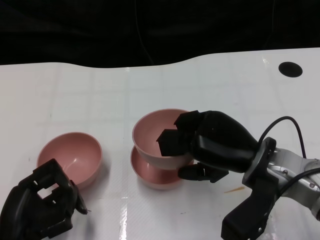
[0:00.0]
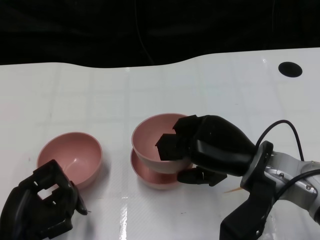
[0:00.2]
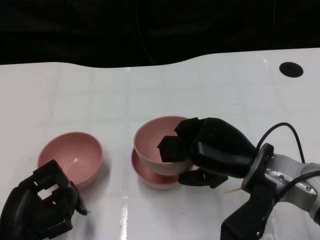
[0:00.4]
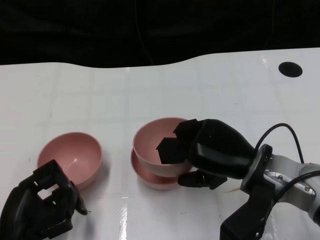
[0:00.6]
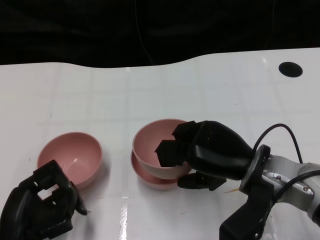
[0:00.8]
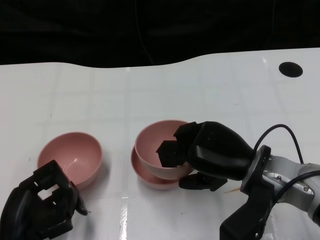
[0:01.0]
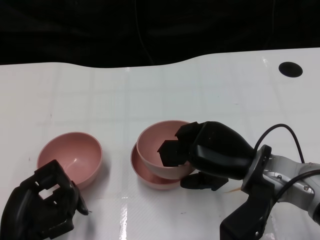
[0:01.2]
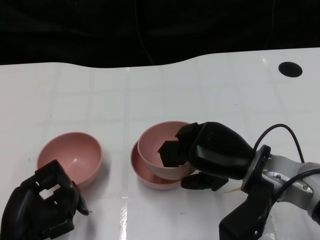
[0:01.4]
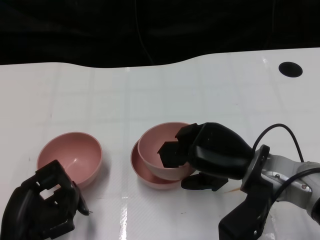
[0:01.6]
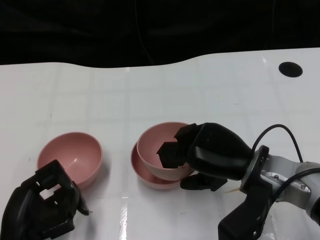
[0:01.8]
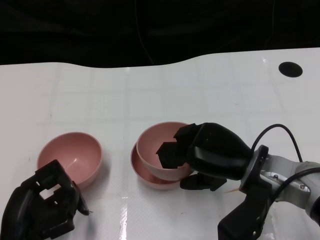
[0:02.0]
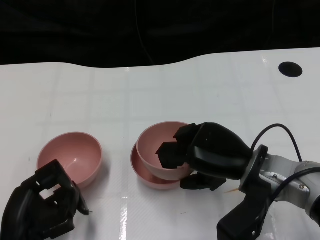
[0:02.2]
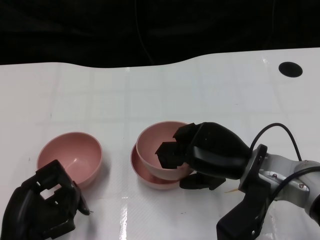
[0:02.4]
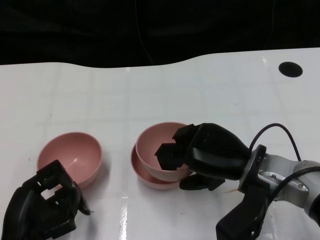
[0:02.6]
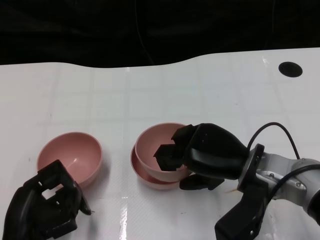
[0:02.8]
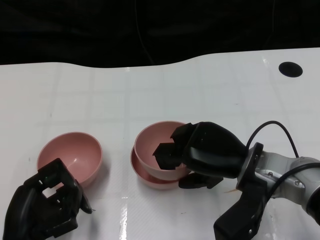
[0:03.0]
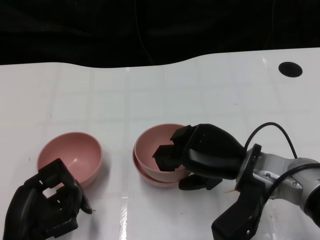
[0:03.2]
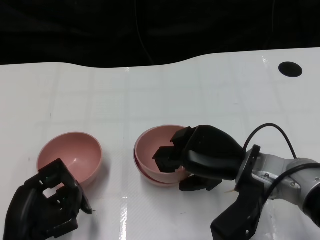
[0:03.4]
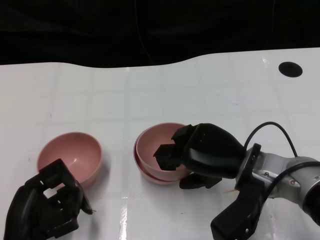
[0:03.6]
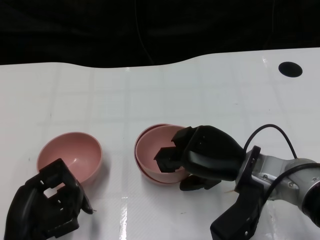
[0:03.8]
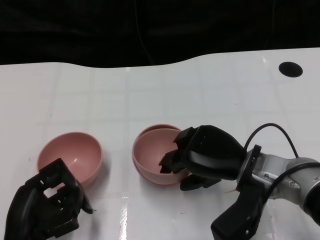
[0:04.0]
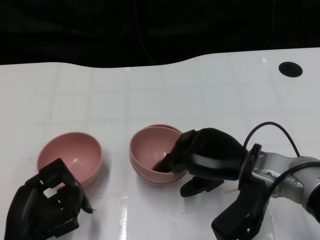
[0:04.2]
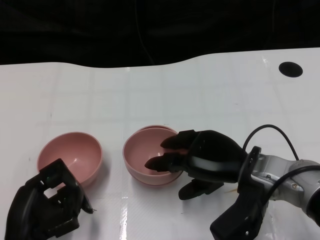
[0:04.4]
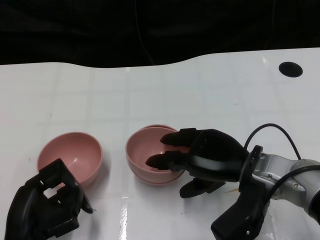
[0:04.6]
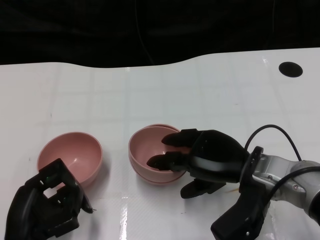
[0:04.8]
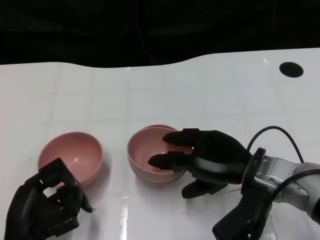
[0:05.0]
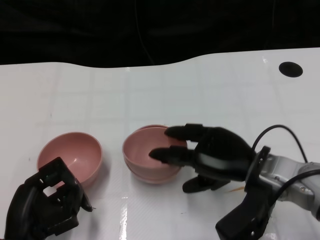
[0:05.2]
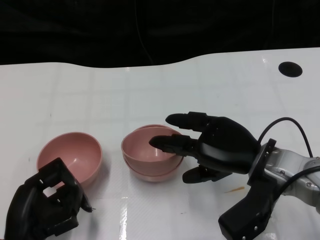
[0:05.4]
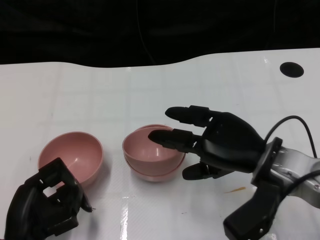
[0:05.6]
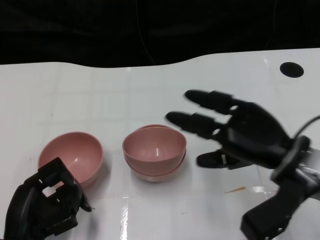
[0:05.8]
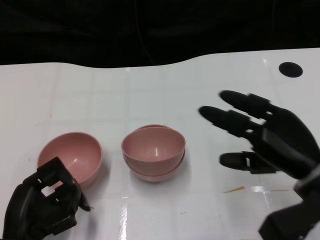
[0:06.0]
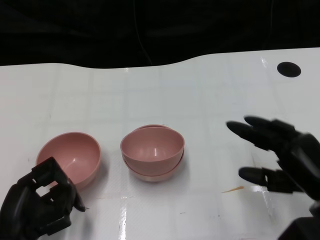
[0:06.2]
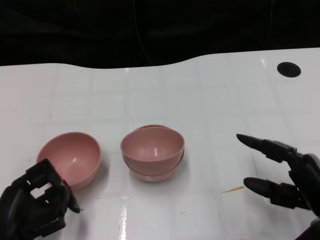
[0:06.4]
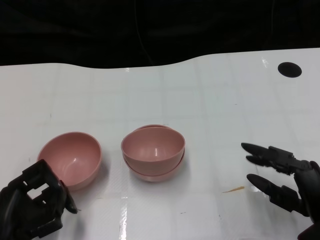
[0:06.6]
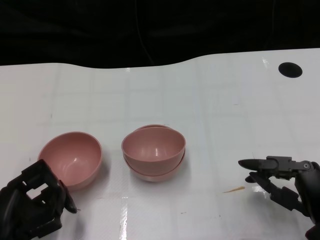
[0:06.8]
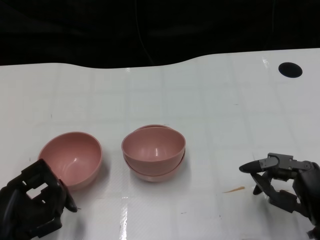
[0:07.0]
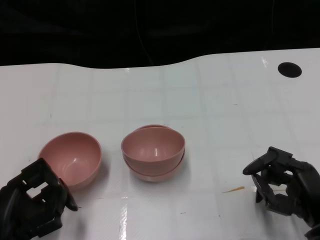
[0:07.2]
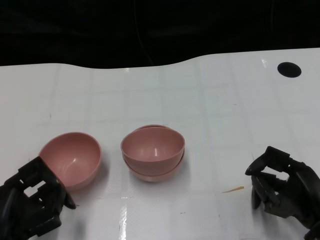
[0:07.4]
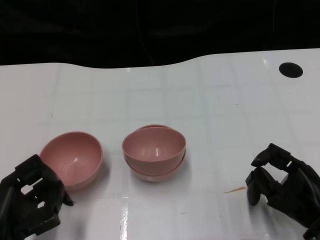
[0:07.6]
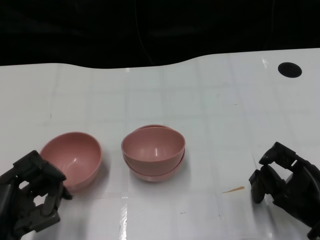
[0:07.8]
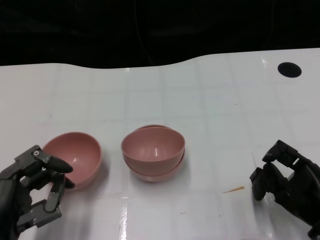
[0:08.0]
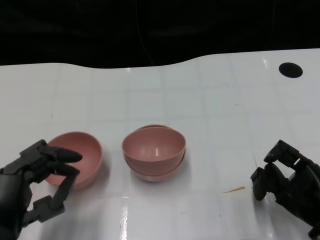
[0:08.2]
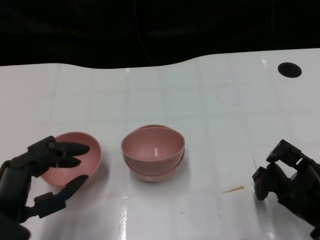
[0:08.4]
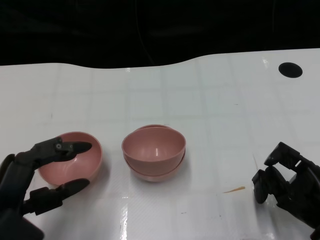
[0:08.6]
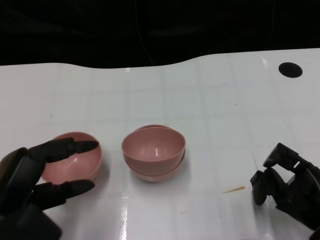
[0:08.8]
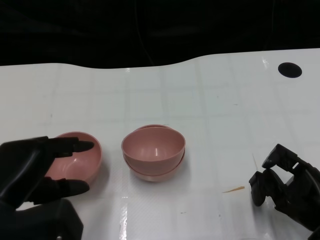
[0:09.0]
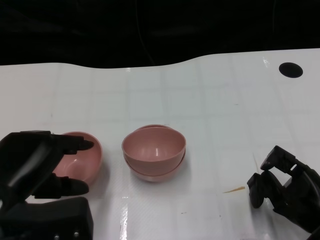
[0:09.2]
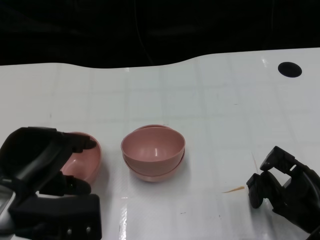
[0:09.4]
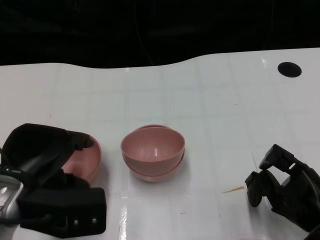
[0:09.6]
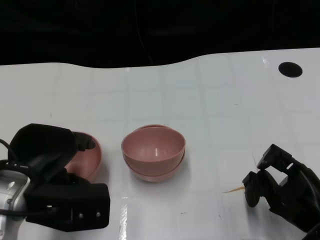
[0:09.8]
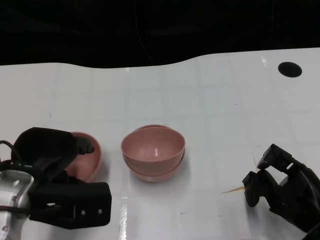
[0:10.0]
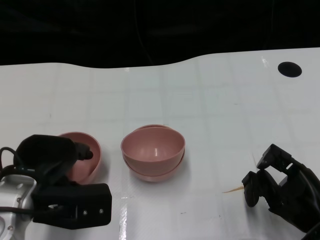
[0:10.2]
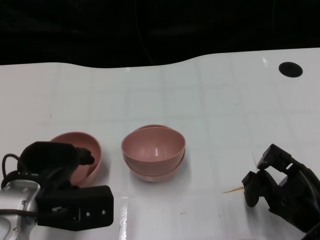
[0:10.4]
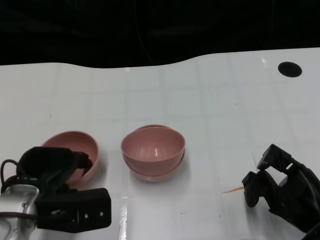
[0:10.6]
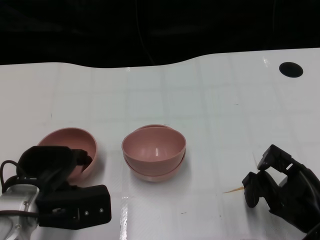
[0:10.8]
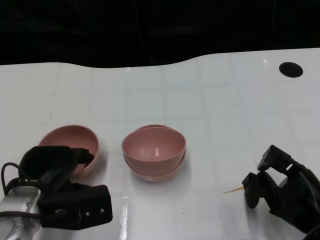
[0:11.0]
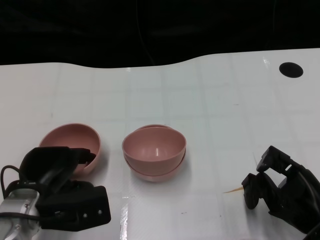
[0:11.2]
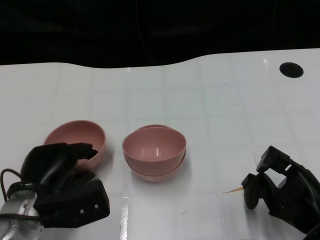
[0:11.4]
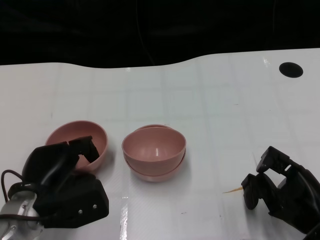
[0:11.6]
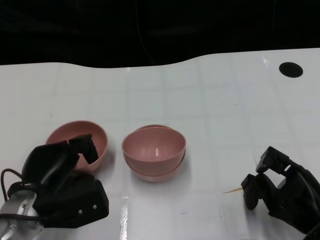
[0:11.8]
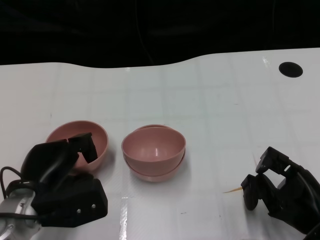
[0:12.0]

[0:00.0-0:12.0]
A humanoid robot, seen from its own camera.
Task of the whole recording: Pick up the bowl on one side of the table and place it on top of the middle bowl, then pick up the bowl on the other side of the table and place it on top of the middle bowls.
Step, 0:00.0 to 0:05.6: Place the bowl on the right onto the bowl in the middle with right gripper.
0:00.0 to 0:01.6: The hands stay close to where they were, moving slightly.
0:01.6 to 0:03.0: Neither hand changes place.
0:03.0 to 0:04.4: The hands stay close to where they were, moving slightly.
0:04.4 to 0:06.0: The right hand heads to the right, covering approximately 10 cm.
0:06.0 to 0:07.6: The right hand shifts approximately 10 cm downward.
0:07.6 to 0:09.0: The left hand is displaced upward by approximately 10 cm.
0:09.0 to 0:10.4: The left hand moves forward, roughly 5 cm.

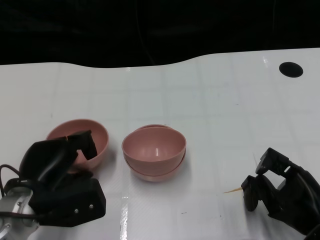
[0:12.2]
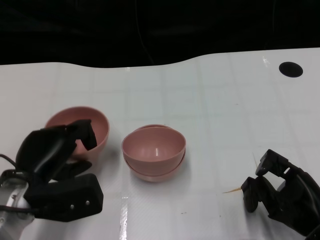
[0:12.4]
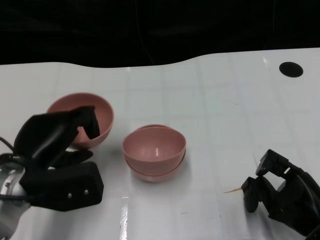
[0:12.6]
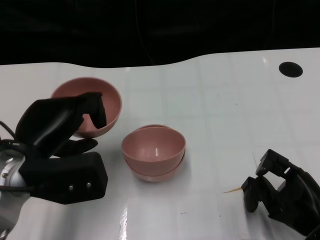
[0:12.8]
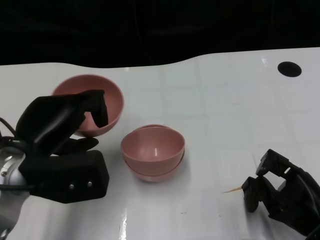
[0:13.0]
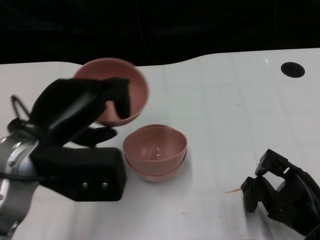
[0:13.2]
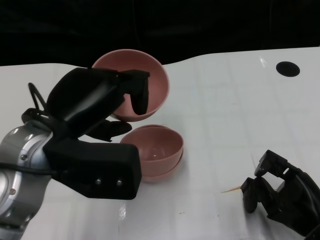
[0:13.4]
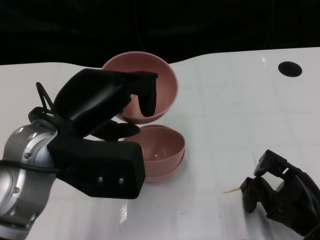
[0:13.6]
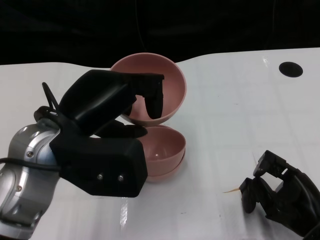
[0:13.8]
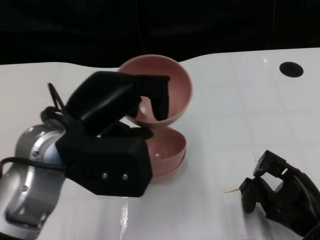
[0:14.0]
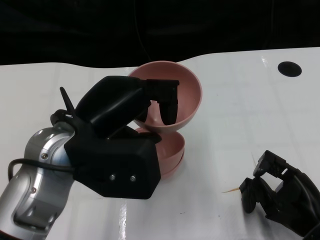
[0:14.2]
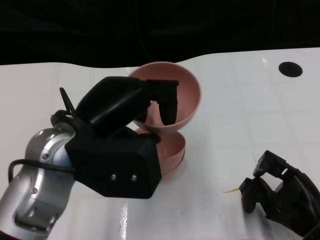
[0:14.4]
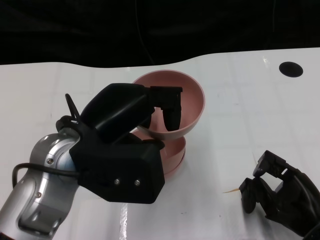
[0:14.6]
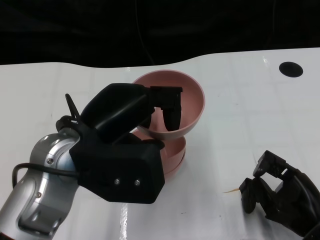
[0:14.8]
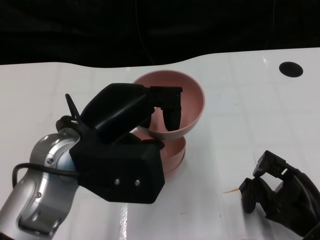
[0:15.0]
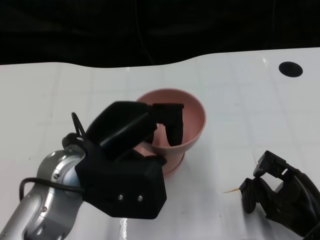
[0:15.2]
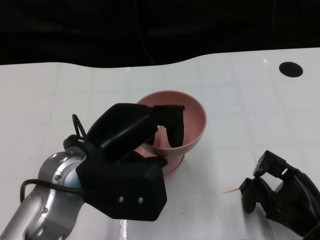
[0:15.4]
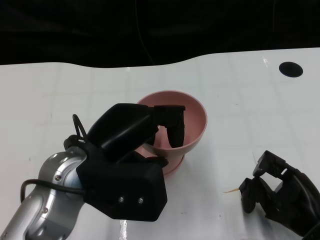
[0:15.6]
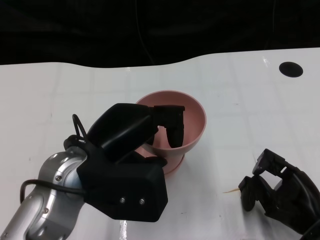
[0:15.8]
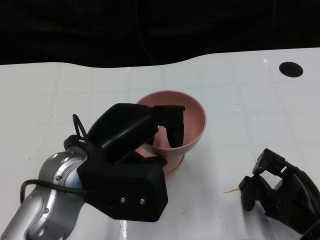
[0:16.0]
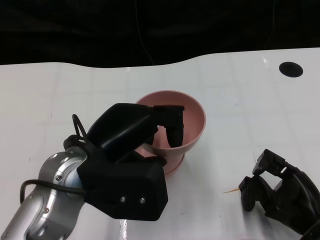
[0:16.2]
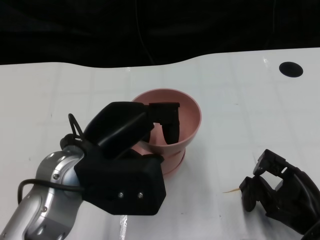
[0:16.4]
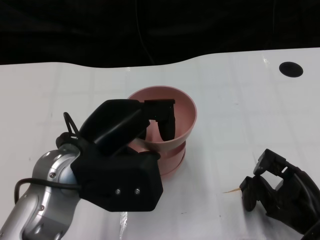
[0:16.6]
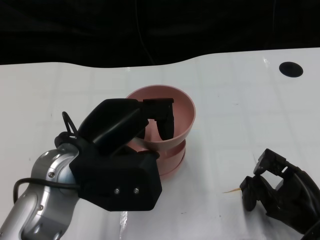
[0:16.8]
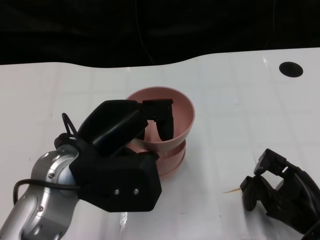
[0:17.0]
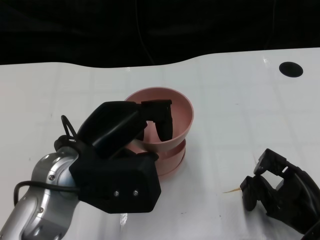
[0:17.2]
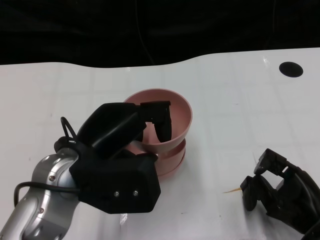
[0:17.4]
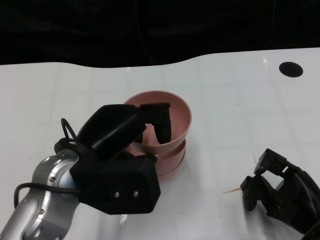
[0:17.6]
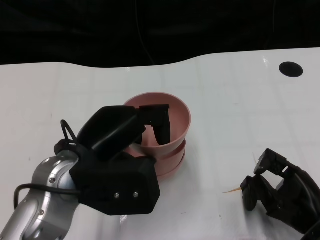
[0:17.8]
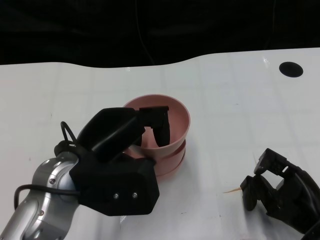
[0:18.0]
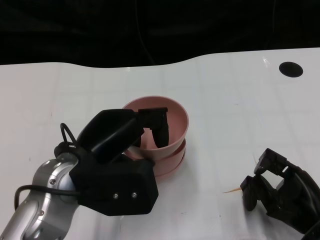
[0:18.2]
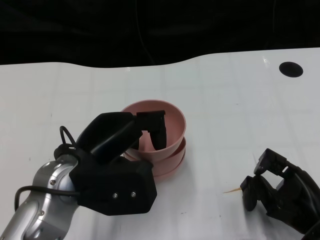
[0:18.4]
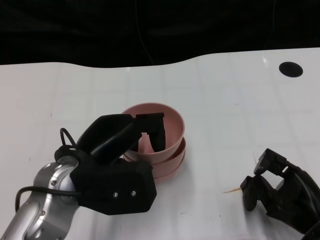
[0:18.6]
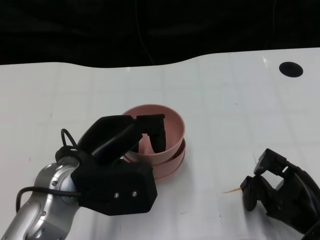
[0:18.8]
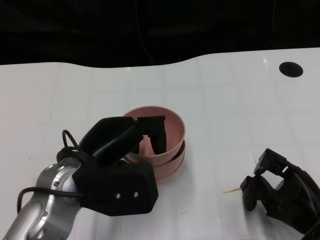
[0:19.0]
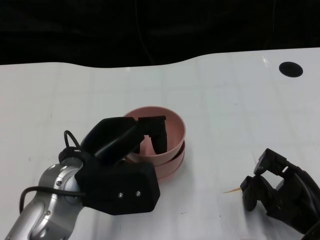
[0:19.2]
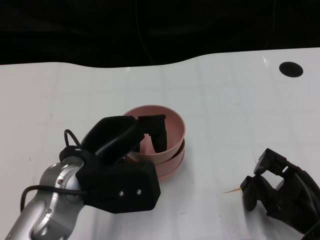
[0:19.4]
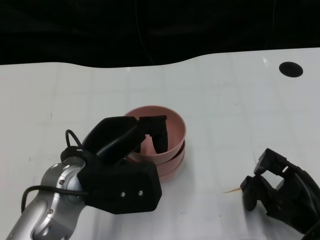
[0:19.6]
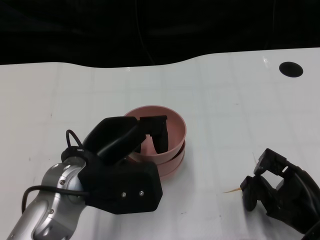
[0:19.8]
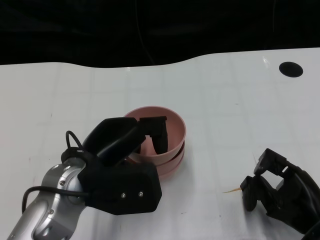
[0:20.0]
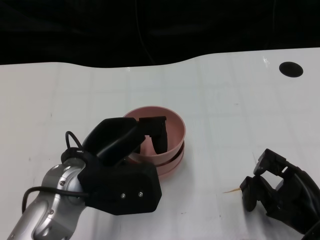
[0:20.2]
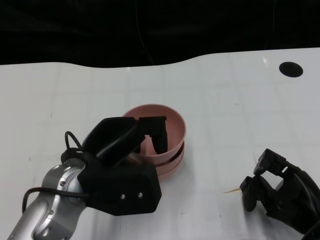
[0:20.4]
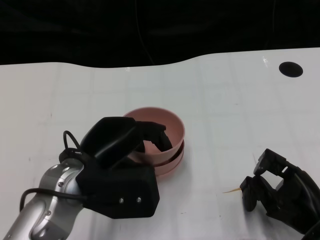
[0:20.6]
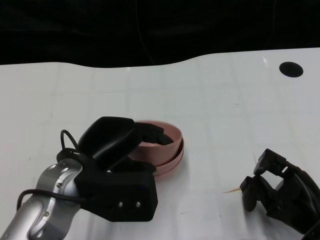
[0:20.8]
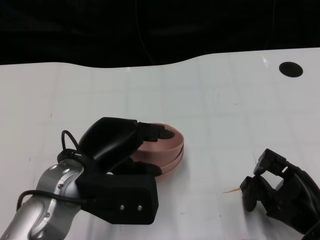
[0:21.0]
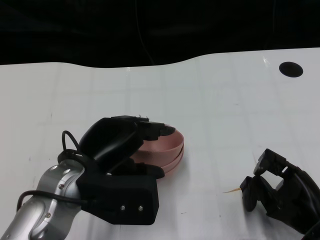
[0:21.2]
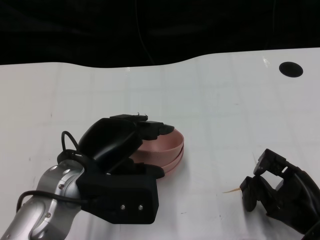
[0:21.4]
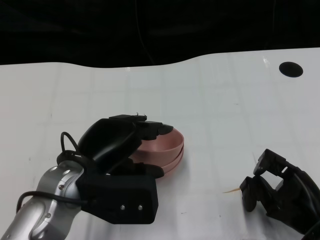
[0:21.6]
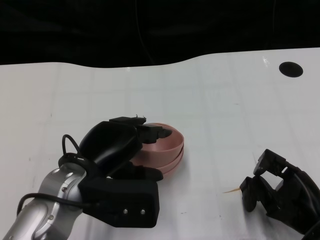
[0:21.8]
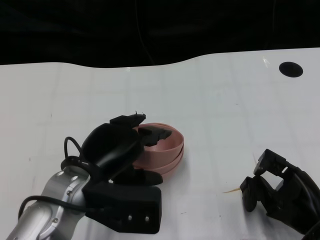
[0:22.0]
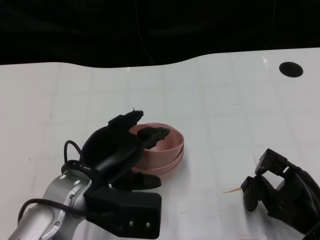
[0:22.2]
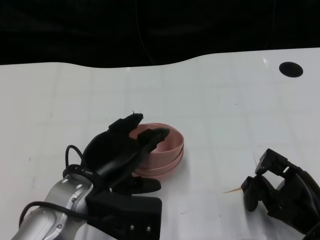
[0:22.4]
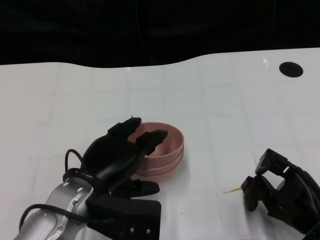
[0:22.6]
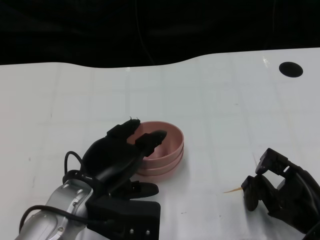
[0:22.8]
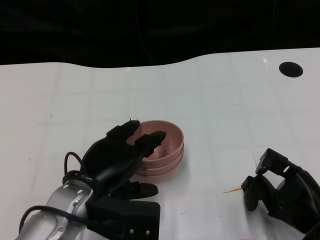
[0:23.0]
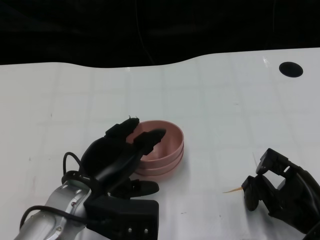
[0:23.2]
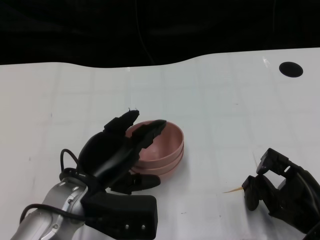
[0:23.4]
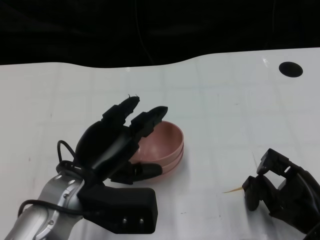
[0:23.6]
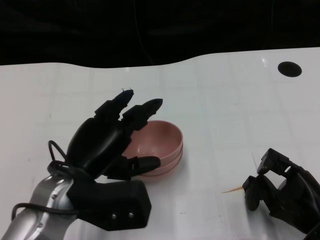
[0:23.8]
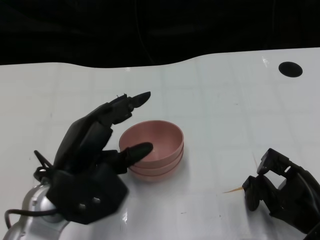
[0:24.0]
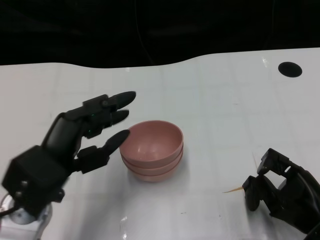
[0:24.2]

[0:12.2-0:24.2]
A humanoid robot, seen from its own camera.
Task of the whole recording: Pick up the bowl on one side of the table and place it on top of the middle bowl, then pick up the bowl on the other side of the table and place it on top of the middle bowls.
Step, 0:12.4 to 0:24.0: Place the bowl on the left onto the bowl in the middle with left gripper.
0:12.2 to 0:13.8: The left hand is displaced upward by approximately 15 cm.
0:15.2 to 0:16.6: Neither hand changes place.
0:16.6 to 0:21.2: The hands stay close to where they were, moving slightly.
0:21.2 to 0:22.6: There are only small adjustments of the hands.
0:22.6 to 0:24.2: The left hand shifts roughly 5 cm to the left.
